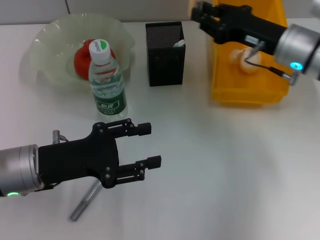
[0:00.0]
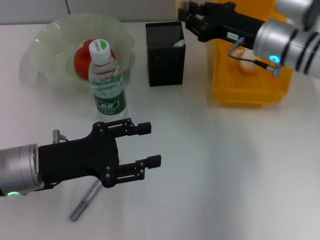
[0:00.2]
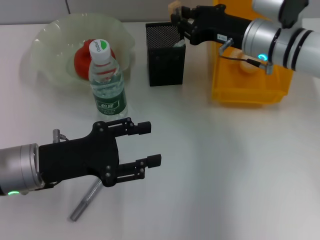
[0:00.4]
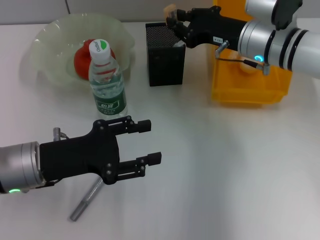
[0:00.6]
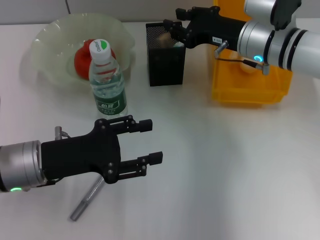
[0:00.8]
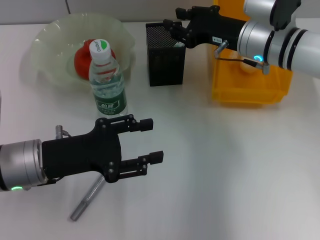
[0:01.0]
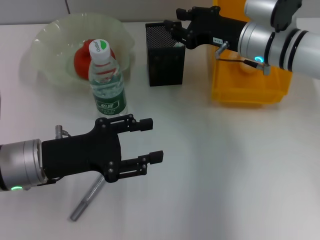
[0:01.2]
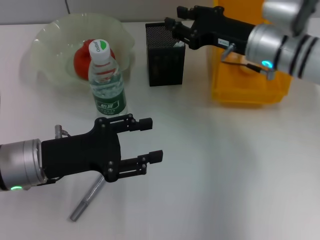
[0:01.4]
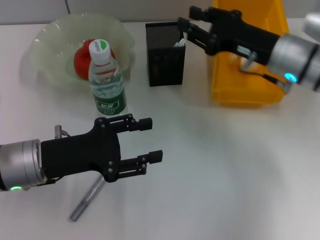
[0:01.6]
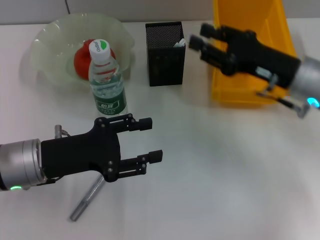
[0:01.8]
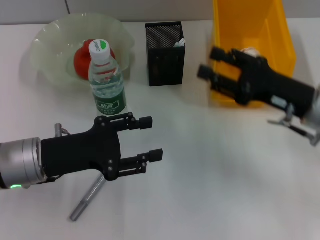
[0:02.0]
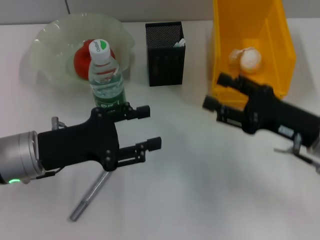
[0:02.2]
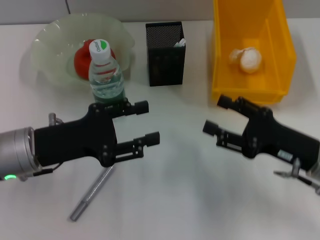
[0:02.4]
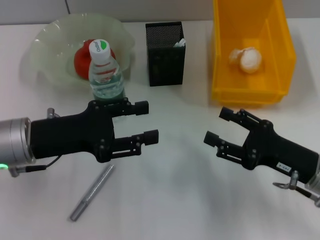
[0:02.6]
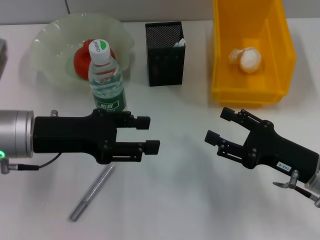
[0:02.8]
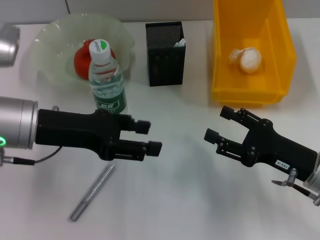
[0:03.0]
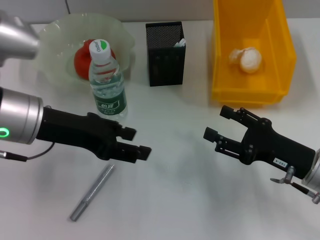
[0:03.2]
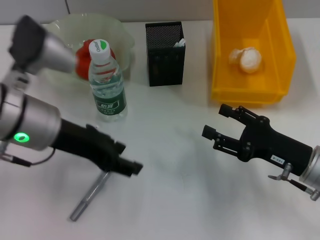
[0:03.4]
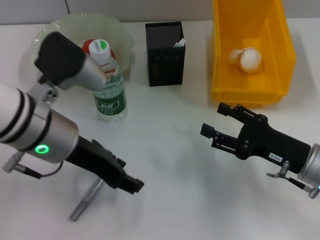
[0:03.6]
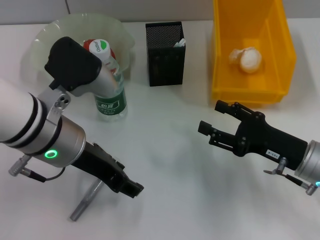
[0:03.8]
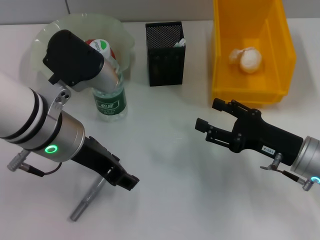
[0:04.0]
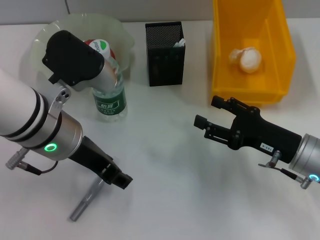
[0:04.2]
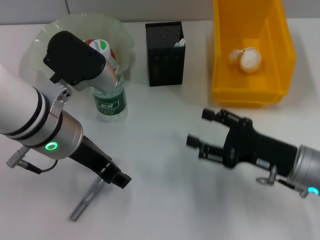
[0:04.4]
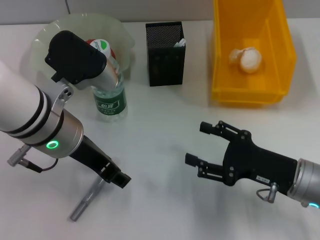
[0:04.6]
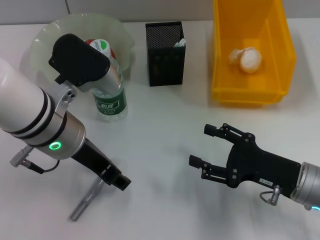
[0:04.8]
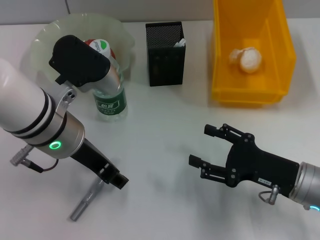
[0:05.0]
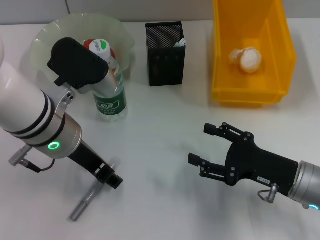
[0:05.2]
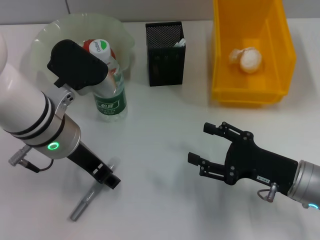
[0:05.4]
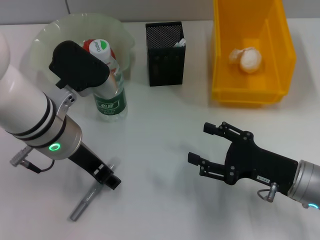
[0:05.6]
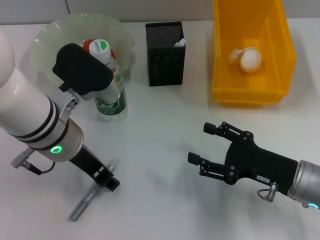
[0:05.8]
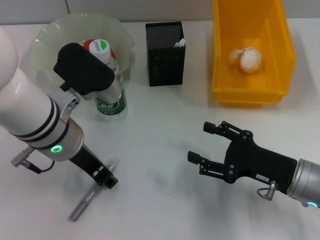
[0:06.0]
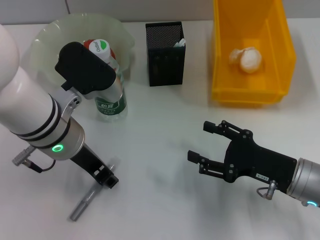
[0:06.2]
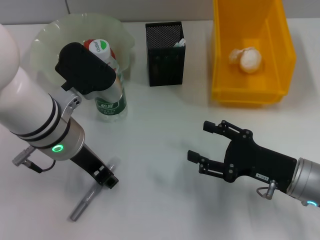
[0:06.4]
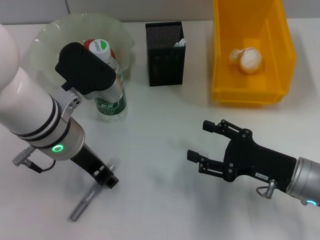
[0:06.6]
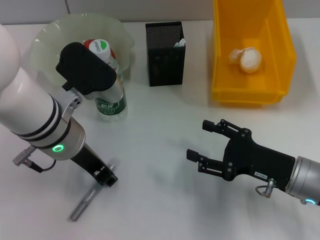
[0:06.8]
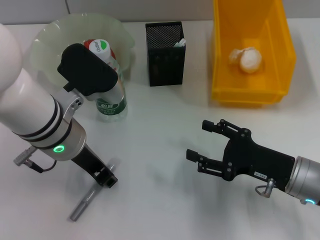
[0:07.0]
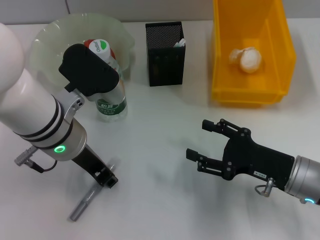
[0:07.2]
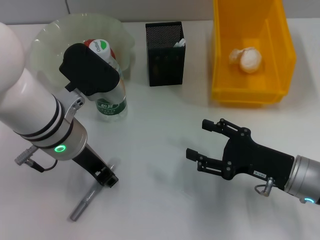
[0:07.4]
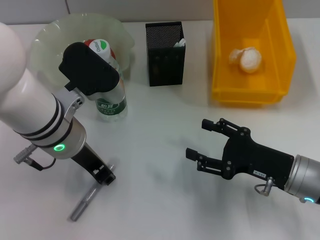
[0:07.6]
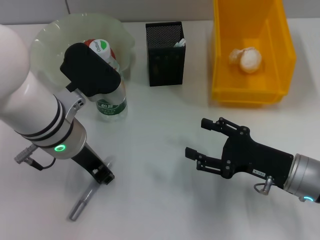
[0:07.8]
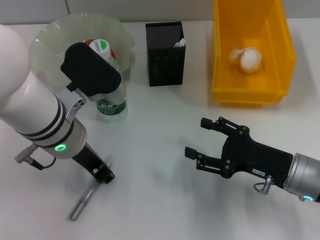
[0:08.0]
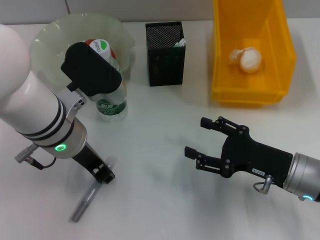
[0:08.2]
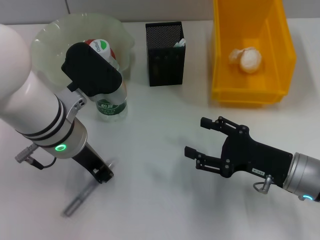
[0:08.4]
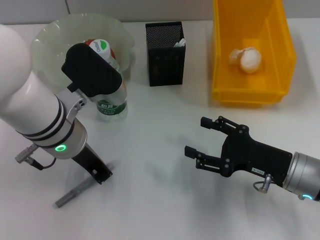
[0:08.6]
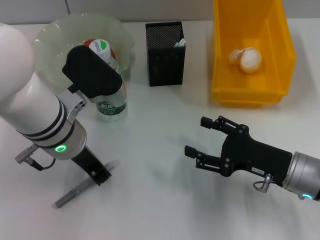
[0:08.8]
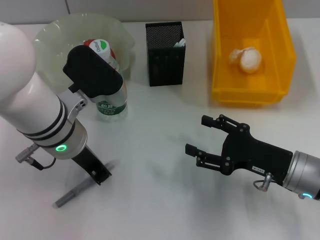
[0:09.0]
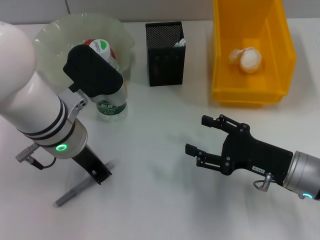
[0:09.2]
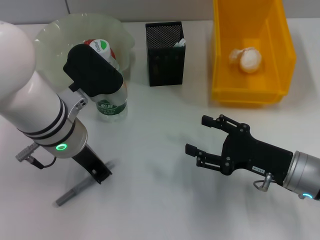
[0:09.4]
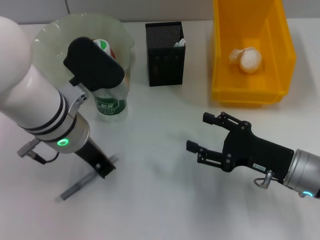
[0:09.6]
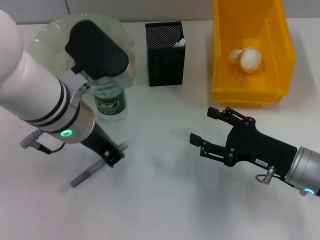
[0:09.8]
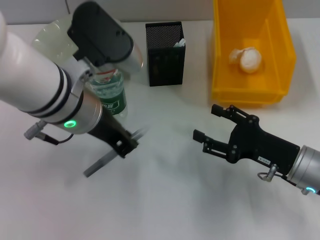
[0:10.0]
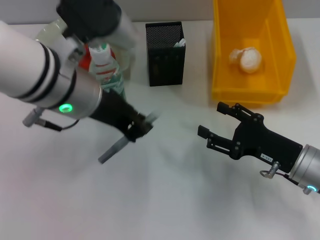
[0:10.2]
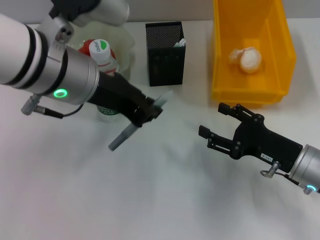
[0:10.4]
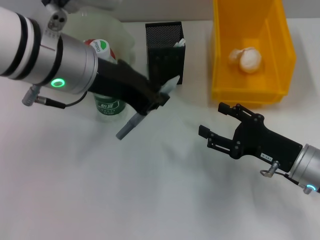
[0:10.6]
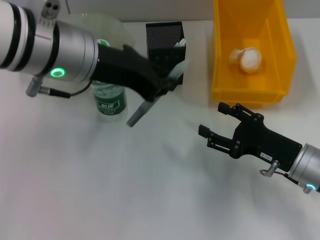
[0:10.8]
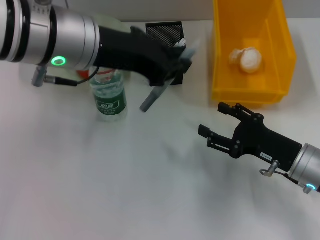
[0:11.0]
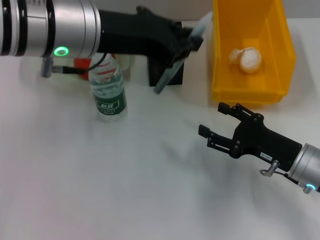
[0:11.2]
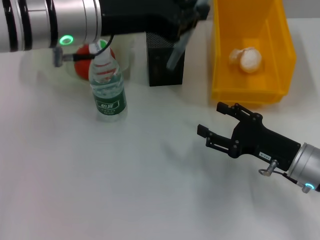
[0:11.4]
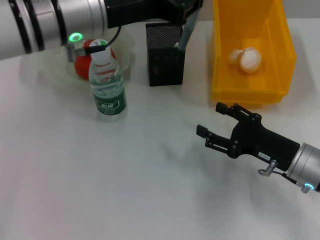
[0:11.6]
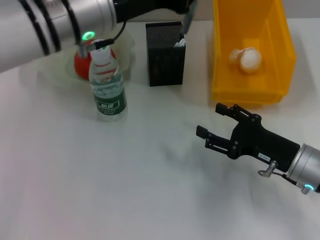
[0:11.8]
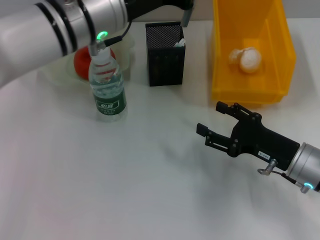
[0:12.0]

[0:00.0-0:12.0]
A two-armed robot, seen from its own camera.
Step, 1.4 to 9.0 s: Grab the gray glue with the right hand.
0.0 to 1.6 s: There are only small adjustments of the grippers.
1.6 to 3.0 s: The right gripper goes some 15 cm backward and downward, and opens. The left gripper is displaced upward by roughly 5 cm.
3.0 to 4.4 s: The left gripper heads to the right, covering some 5 cm.
4.4 to 6.0 s: There are only small adjustments of the grippers.
6.0 to 7.6 s: Both grippers stay about where they are.
7.6 to 9.0 s: The left gripper closes up.
9.0 to 10.4 s: The left gripper heads upward, covering approximately 10 cm.
10.4 to 12.0 s: The left gripper shifts approximately 5 cm forward.

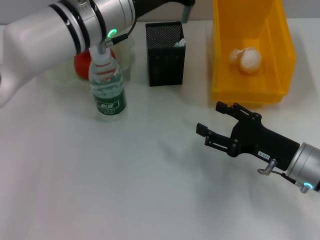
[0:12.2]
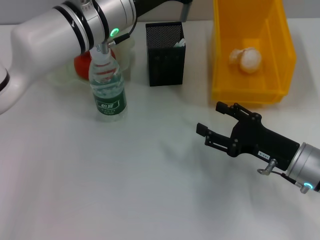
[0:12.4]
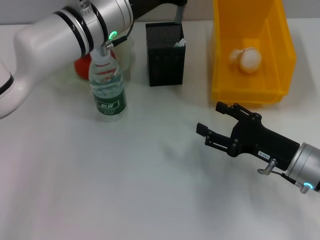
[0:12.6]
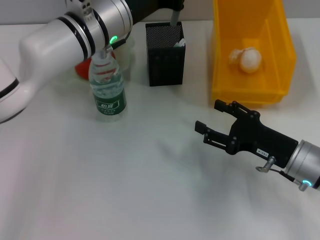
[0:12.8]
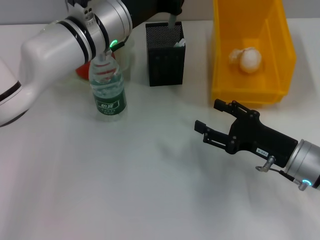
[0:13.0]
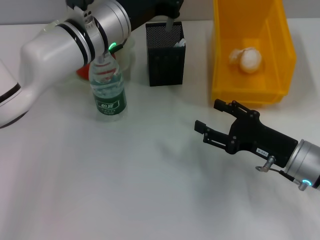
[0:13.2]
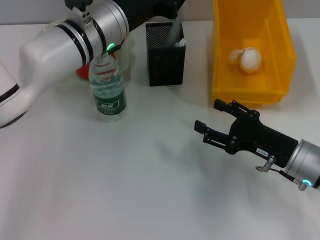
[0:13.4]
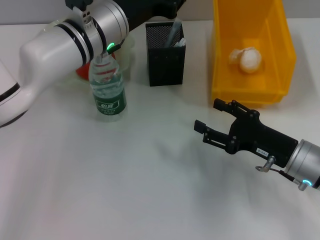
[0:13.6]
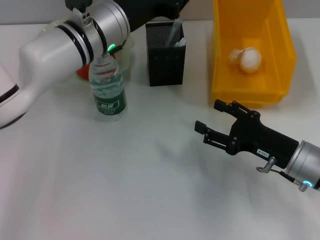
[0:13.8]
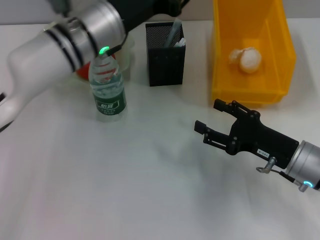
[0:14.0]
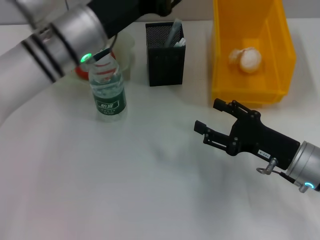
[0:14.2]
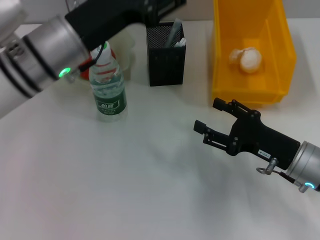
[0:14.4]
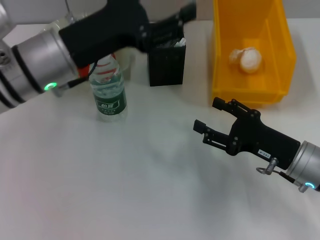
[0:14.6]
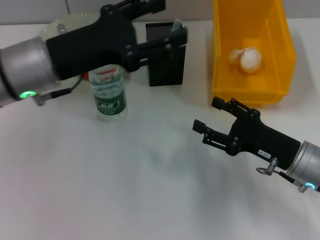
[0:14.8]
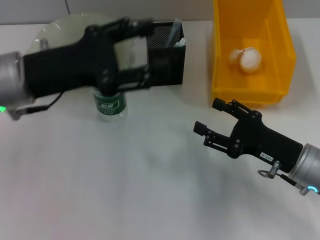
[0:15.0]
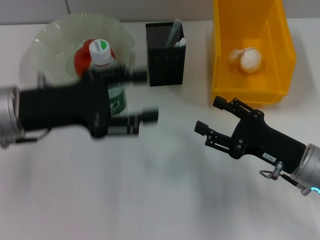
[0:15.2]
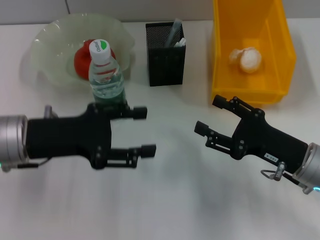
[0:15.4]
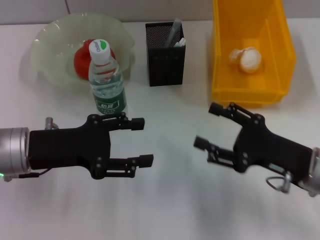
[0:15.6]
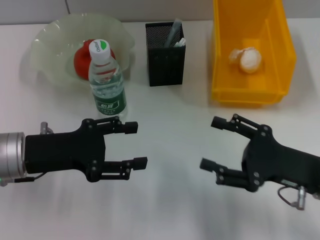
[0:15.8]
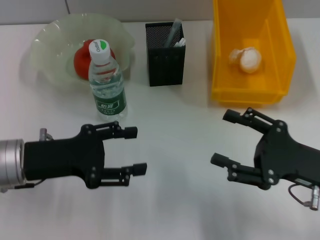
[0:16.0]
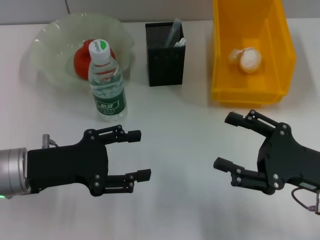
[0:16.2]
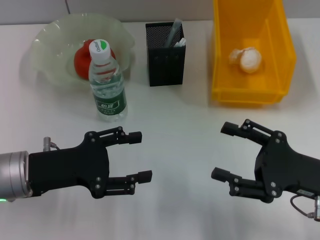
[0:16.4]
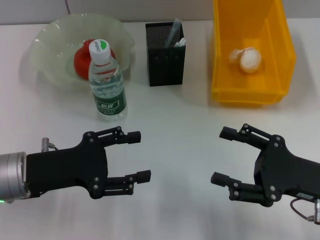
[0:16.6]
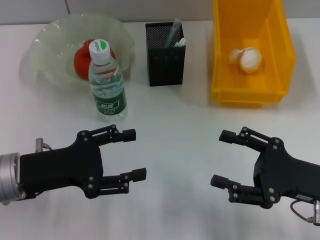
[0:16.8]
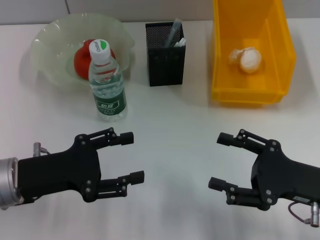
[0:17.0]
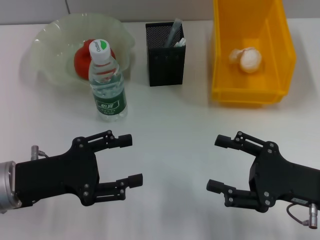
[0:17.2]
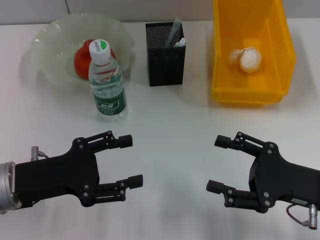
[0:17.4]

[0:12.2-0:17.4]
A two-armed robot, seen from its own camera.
12.2 to 14.0 s: The grippers move only a little.
14.0 to 15.6 s: The left gripper travels backward, to the left and downward by some 15 cm, and opens up.
15.6 to 17.4 s: The left gripper changes place by about 5 cm.

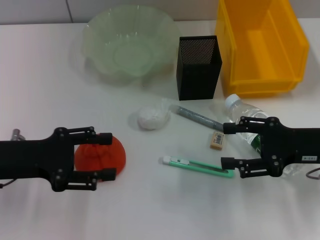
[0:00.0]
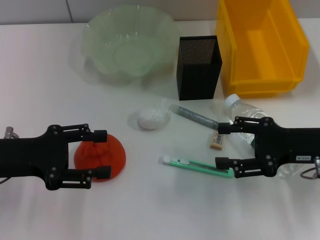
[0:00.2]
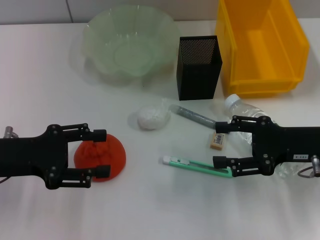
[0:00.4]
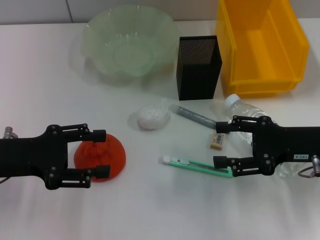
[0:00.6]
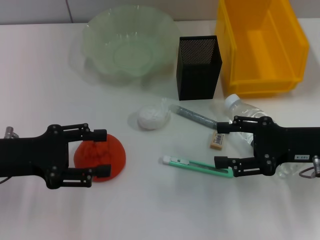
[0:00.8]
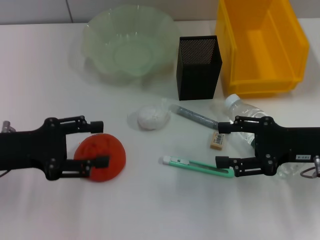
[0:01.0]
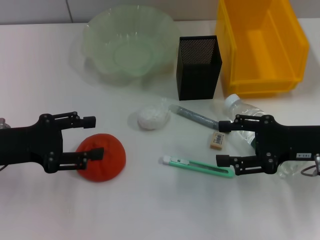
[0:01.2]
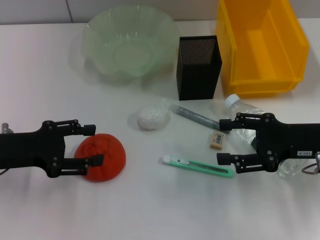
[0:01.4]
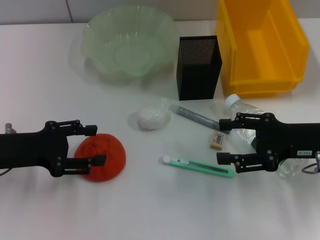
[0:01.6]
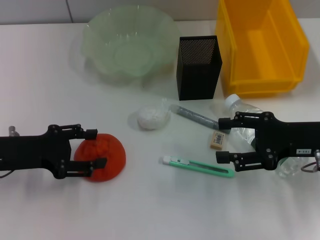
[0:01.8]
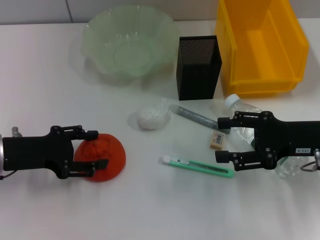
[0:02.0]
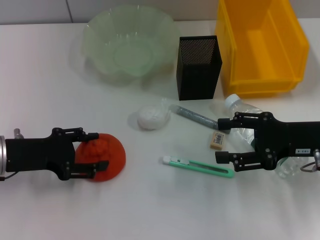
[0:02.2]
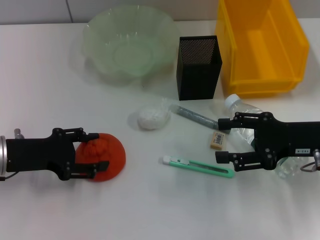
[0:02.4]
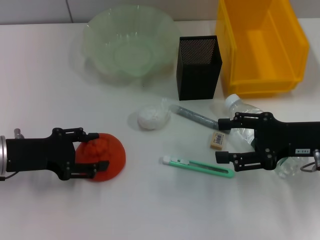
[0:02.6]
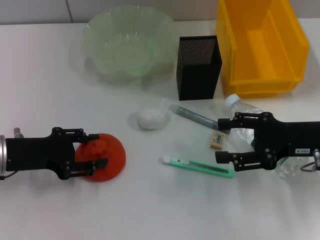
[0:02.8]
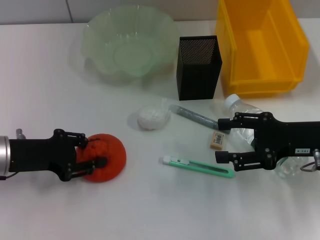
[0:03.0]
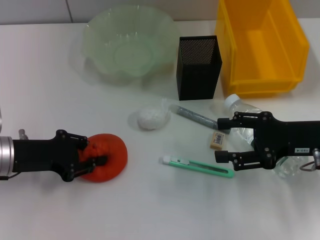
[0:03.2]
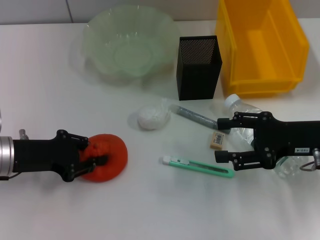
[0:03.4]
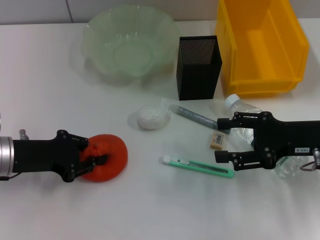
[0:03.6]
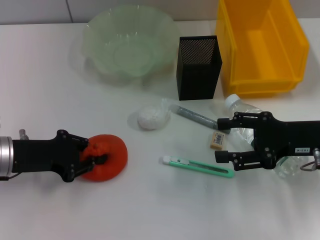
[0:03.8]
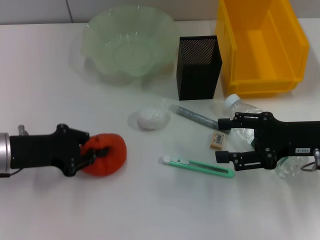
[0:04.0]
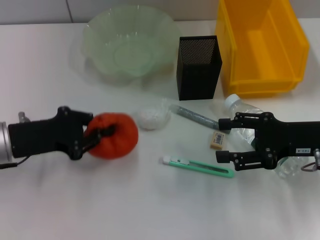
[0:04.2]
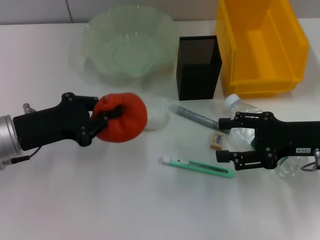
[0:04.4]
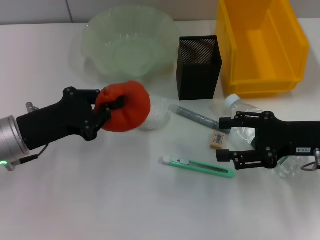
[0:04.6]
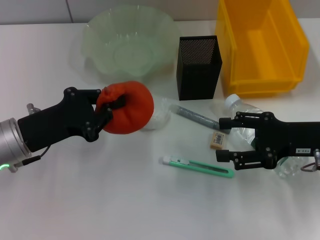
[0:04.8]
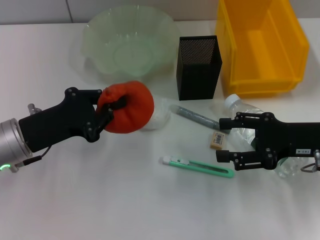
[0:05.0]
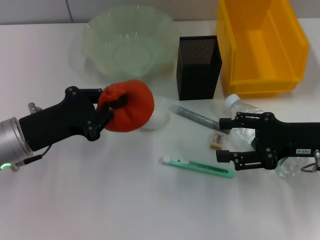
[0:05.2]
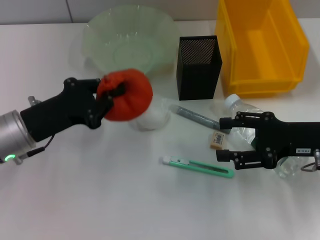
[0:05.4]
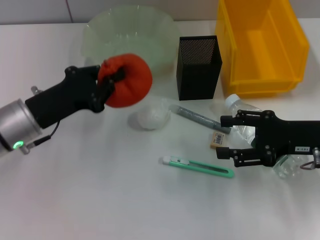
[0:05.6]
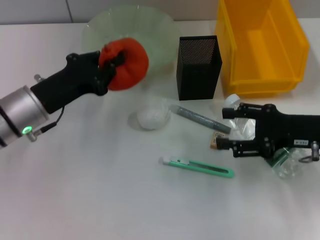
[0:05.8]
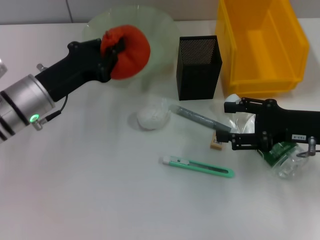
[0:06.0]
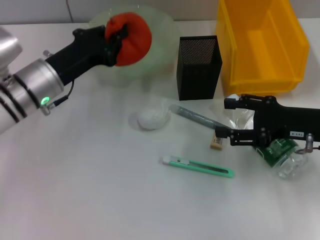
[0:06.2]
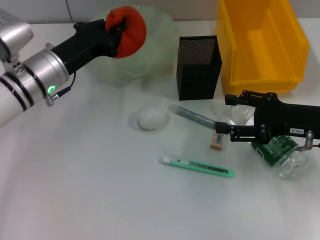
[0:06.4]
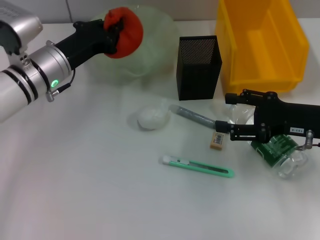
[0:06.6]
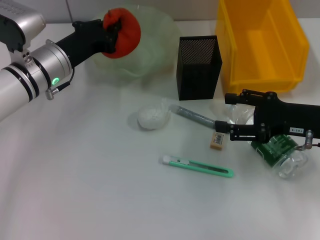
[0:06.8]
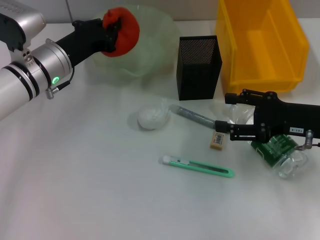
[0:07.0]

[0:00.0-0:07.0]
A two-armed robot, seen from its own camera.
Step, 0.0 to 3.8 s: Grab the orange with the left hand.
0.0 to 2.8 s: There are only small adjustments of the grippers.
2.8 to 4.2 s: The left gripper closes.
5.6 to 7.0 s: The left gripper heads forward, covering about 10 cm.
